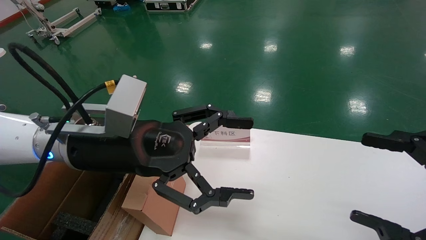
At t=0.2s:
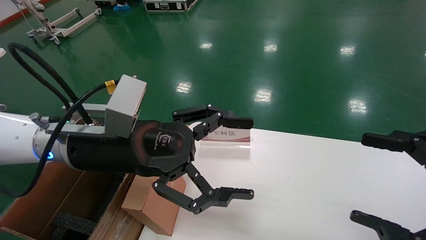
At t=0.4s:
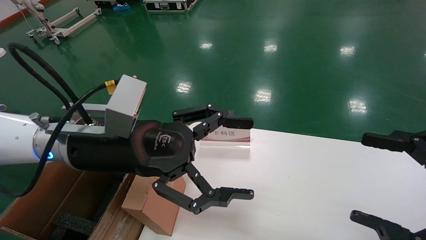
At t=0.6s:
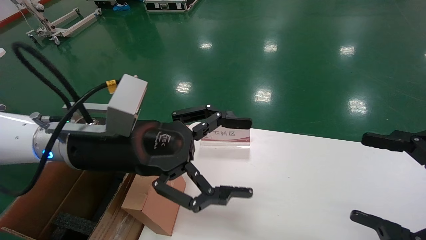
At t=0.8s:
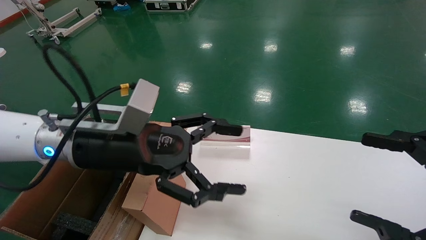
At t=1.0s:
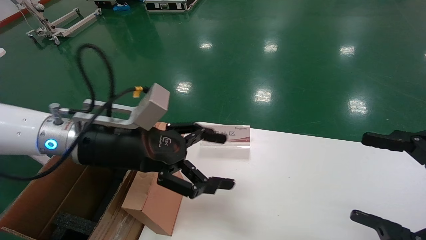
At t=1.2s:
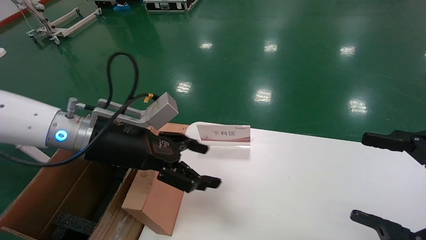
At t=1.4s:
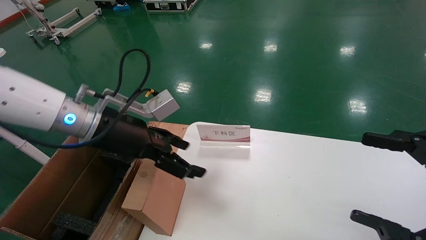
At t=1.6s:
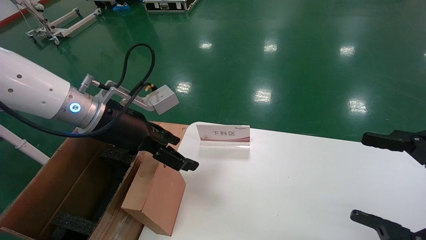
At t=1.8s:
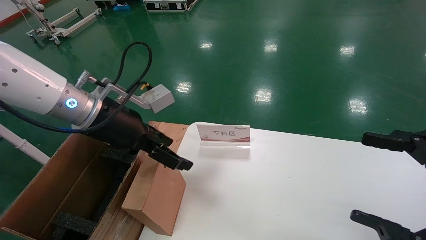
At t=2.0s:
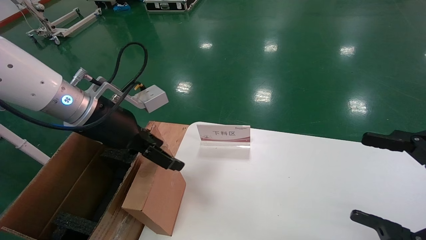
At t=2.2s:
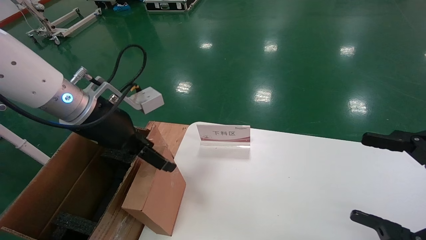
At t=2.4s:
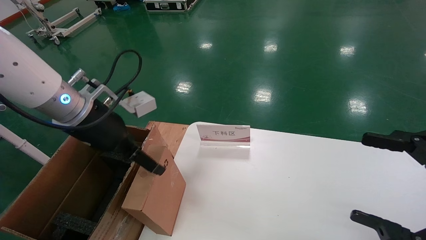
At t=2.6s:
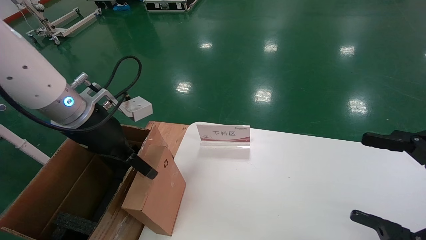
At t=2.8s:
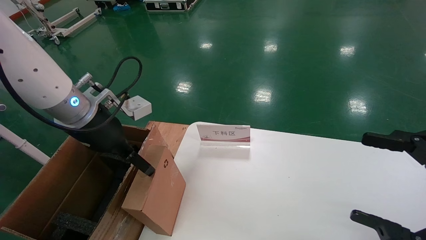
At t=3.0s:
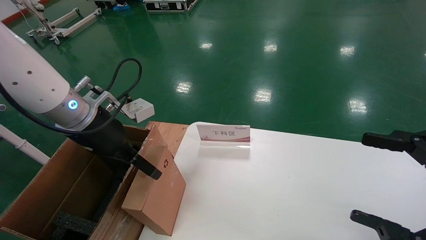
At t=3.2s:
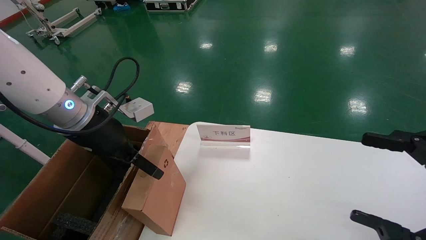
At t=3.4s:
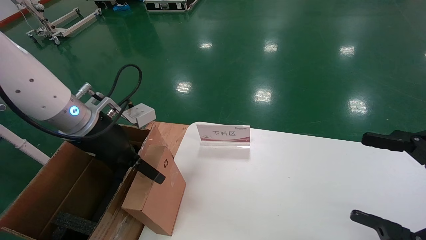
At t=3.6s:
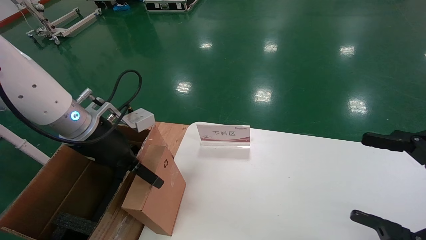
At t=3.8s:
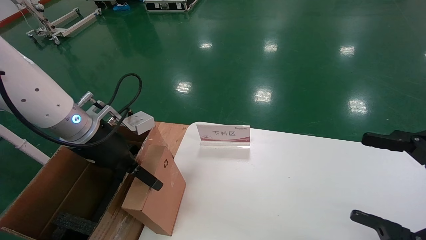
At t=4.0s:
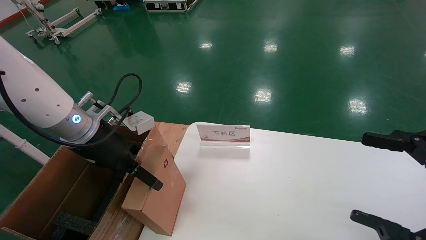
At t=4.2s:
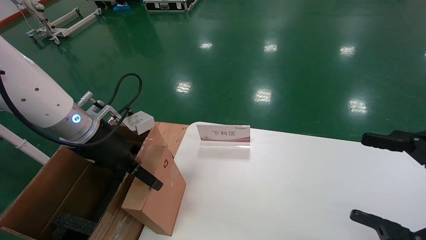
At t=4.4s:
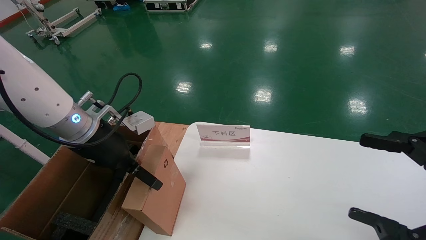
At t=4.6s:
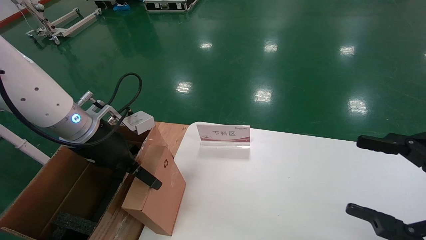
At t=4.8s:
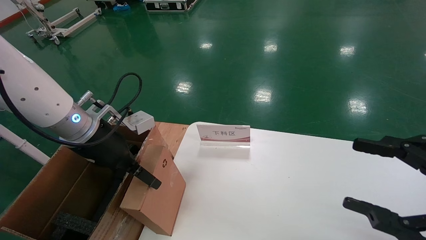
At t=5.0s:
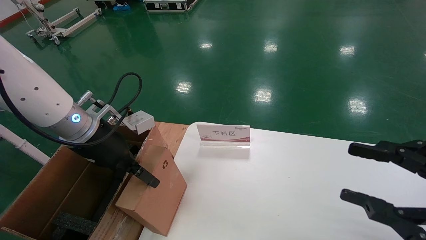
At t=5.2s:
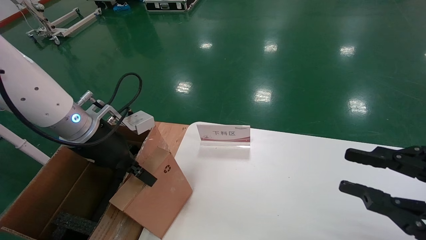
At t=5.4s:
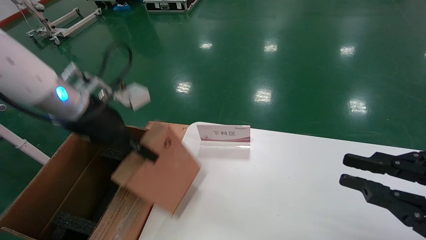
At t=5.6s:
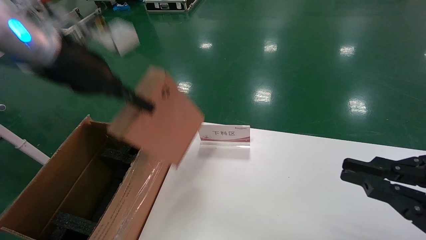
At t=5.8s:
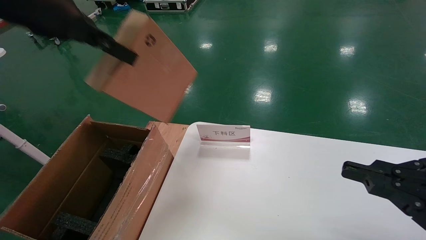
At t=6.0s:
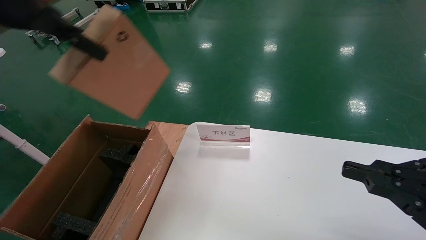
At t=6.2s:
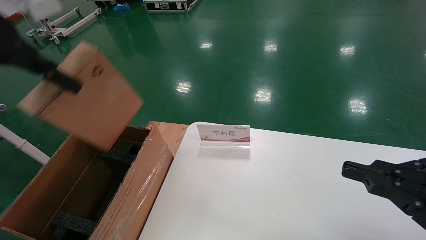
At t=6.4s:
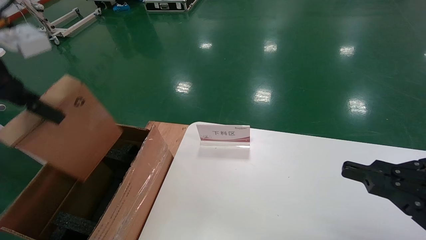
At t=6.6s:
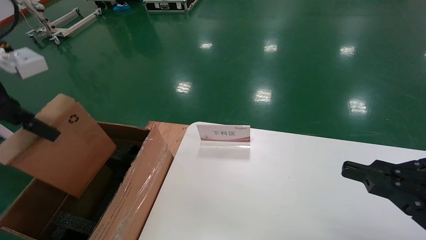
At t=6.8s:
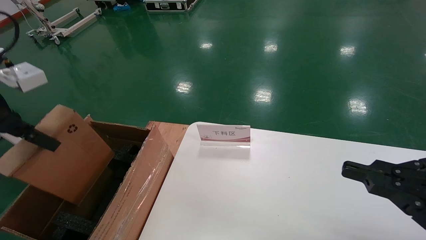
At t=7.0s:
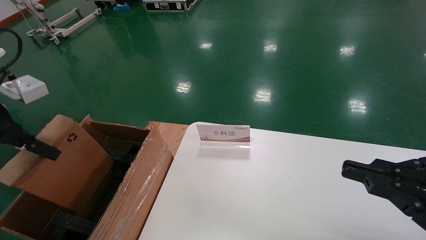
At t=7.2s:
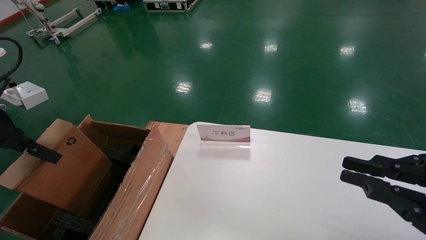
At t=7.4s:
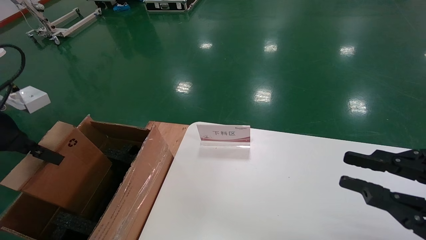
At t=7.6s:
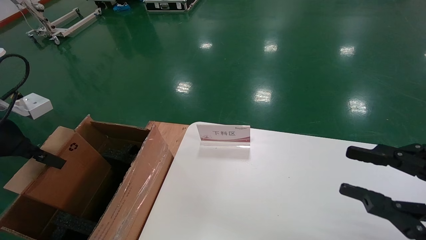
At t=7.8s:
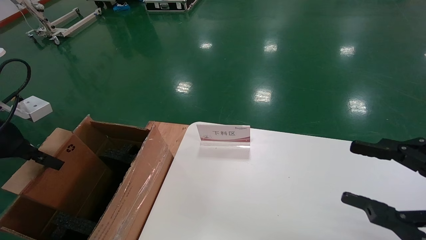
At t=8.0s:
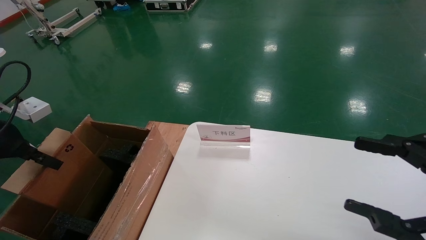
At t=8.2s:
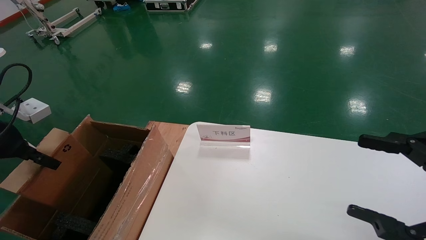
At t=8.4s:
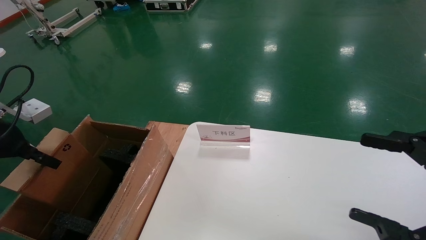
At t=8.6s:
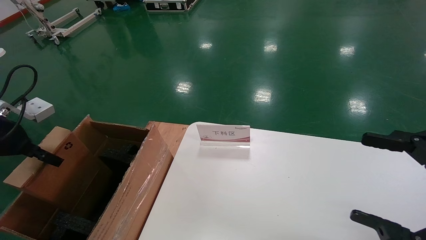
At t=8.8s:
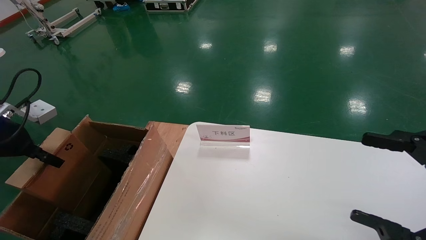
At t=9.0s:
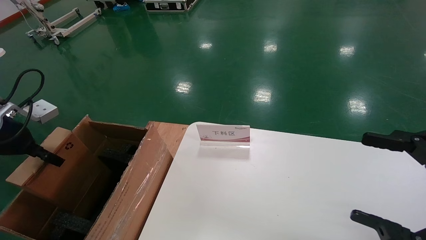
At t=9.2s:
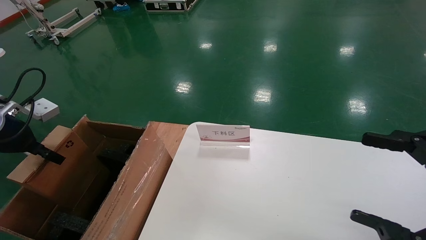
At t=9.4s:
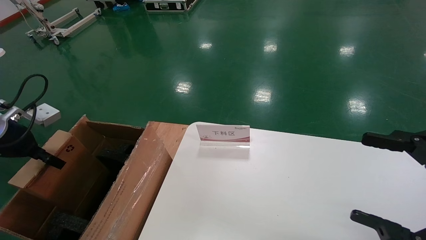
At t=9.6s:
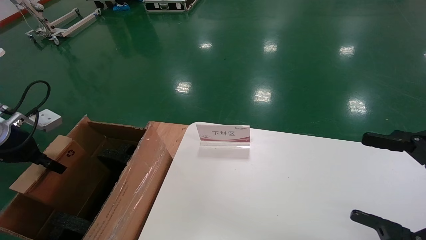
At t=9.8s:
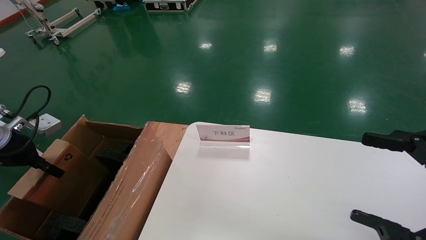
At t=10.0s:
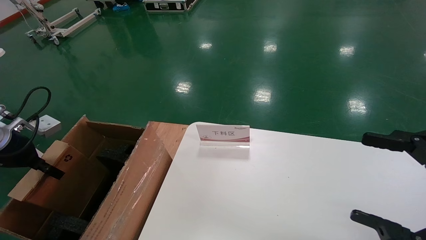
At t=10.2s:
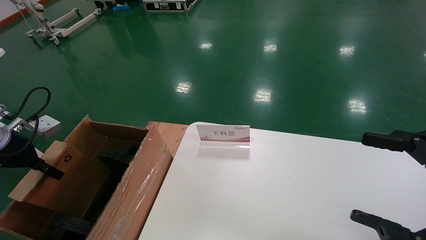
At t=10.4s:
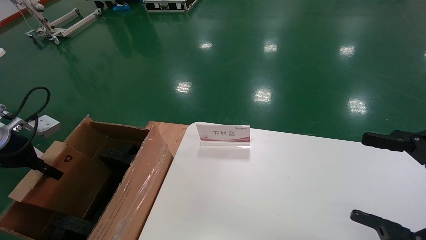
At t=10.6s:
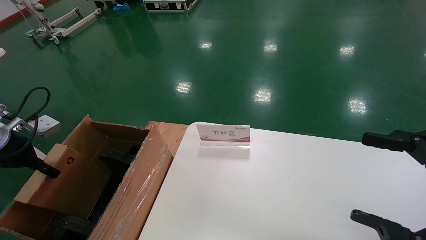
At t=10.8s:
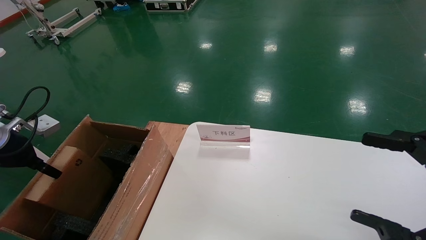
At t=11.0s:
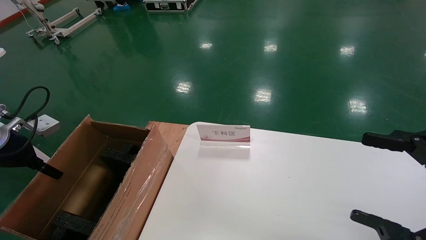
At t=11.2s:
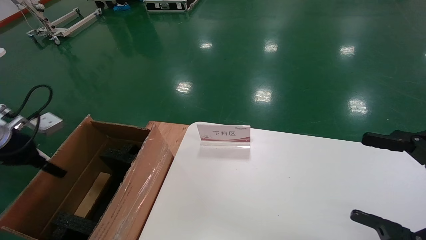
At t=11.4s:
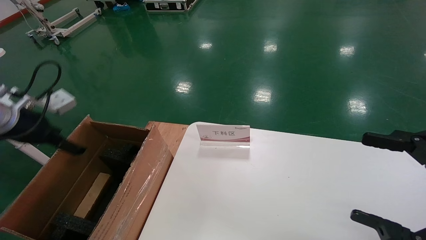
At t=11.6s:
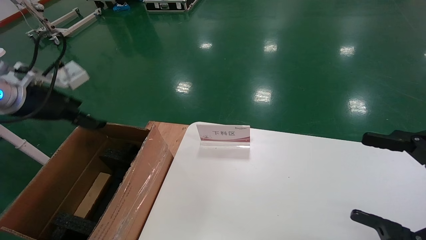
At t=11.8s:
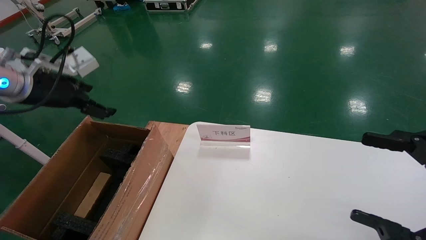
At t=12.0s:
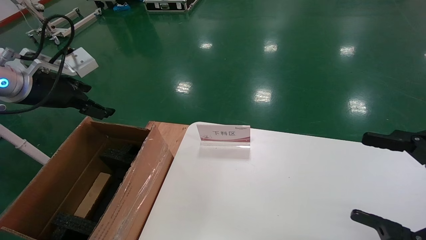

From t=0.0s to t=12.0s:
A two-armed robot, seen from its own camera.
Task of the whole recording: pick up the small cardboard box and load it into the large cardboard box.
Step, from t=1.0s to t=5.6s: Pick up the mouse and power cord box.
Step, from t=5.8s to t=11.4s: Place the mouse and power cord box into the case.
From t=0.0s to t=1.6s: The left gripper is displaced forward by about 5 cm.
From t=3.0s to t=4.4s: The grippers move only a little.
From t=4.4s to t=6.0s: The right gripper closes; the left gripper goes roughly 20 cm upward, and closes its fingers.
From t=6.0s to t=7.6s: The left gripper goes about 20 cm downward and to the left.
From t=7.6s to t=9.0s: The right gripper opens, while the left gripper ends up some 5 cm from where it was.
From t=9.0s to t=10.4s: The grippers move only a little.
From t=10.4s to t=12.0s: The left gripper travels upward and to the right by about 15 cm, and opens its fingers.

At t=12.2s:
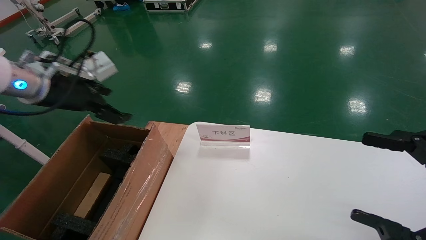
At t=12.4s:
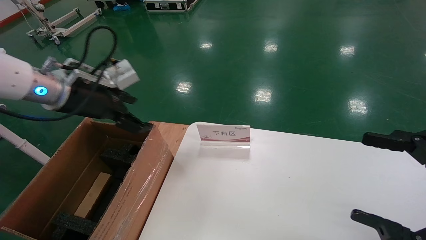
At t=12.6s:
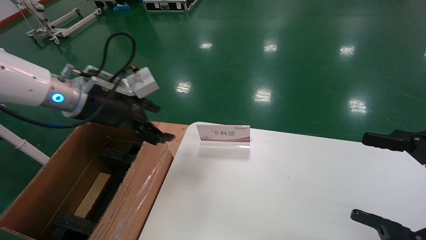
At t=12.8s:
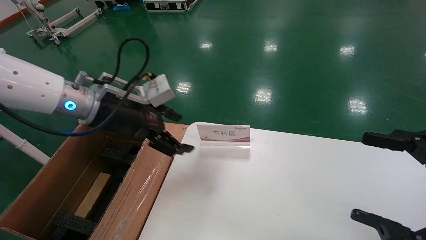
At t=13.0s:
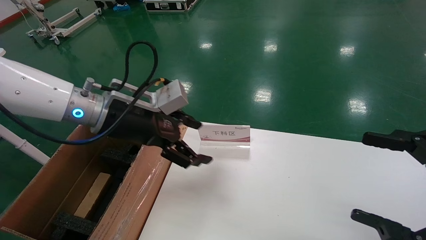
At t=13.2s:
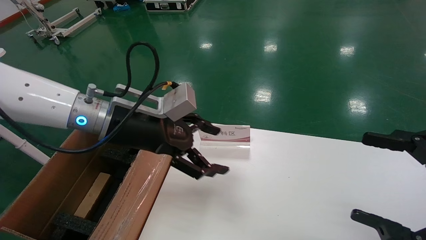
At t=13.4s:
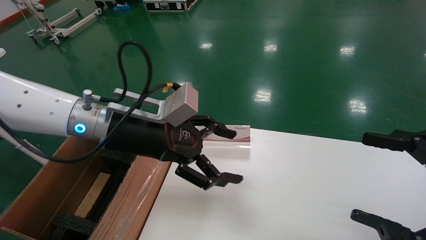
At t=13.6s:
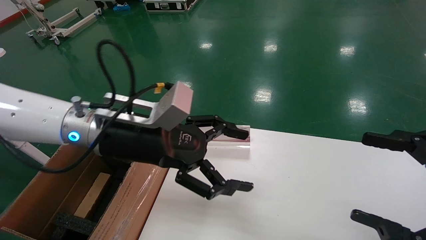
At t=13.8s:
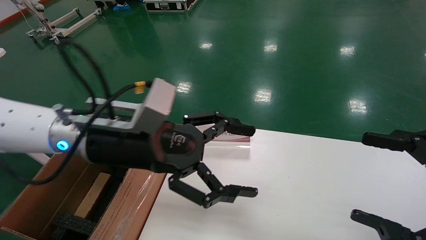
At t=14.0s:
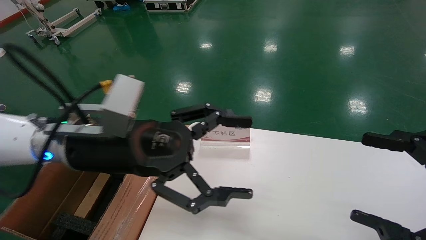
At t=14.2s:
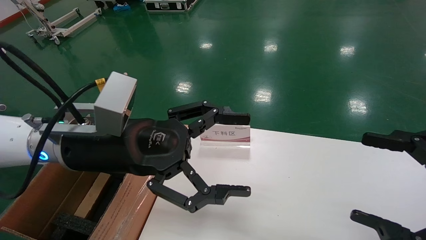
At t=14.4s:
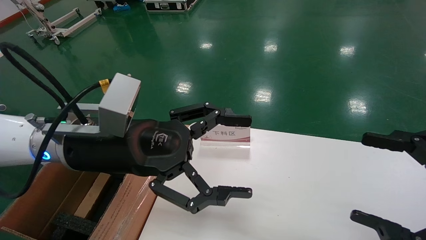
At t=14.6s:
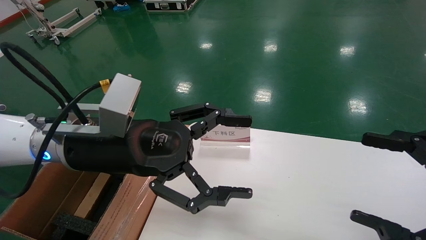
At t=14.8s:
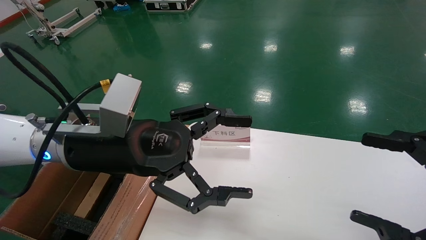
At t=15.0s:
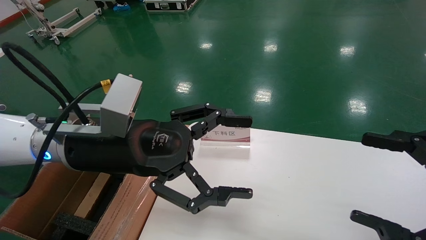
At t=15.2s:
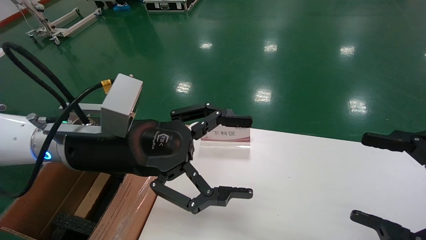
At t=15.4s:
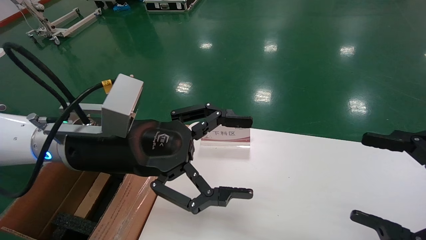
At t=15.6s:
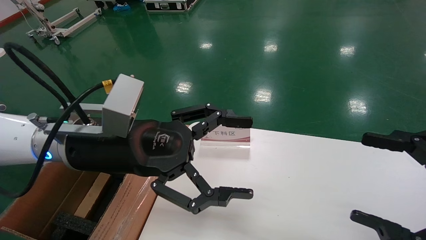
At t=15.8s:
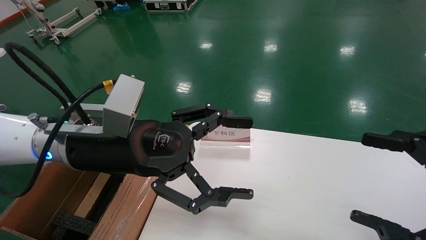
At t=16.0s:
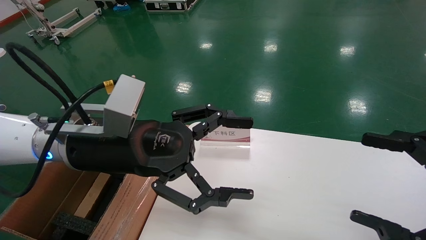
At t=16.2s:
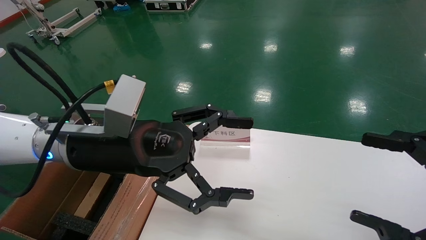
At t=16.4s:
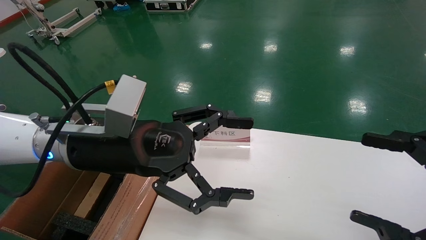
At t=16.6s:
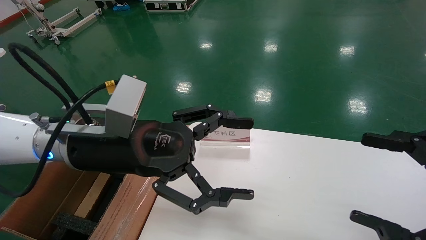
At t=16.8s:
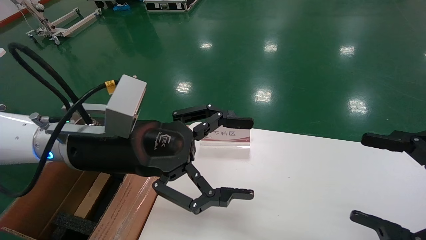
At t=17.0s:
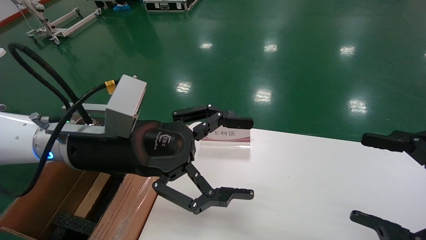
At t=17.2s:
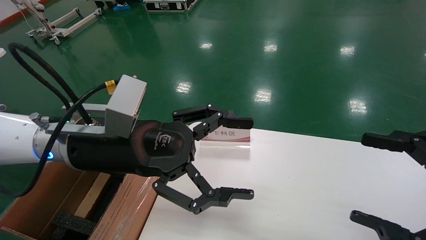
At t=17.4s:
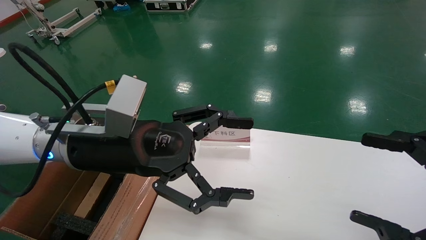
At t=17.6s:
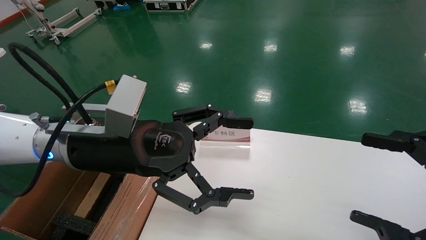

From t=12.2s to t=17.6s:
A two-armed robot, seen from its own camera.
Task of the whole recording: pick up the small cardboard box and load it into the large cardboard box.
From t=12.2s to t=13.6s: The left gripper heads to the right, covering some 15 cm.
From t=13.6s to t=15.0s: There are only small adjustments of the grippers.
From t=15.0s to t=17.6s: The two grippers keep their place.
